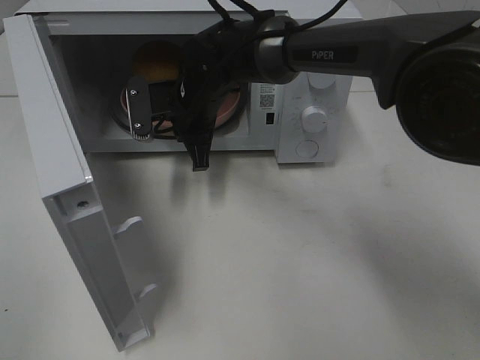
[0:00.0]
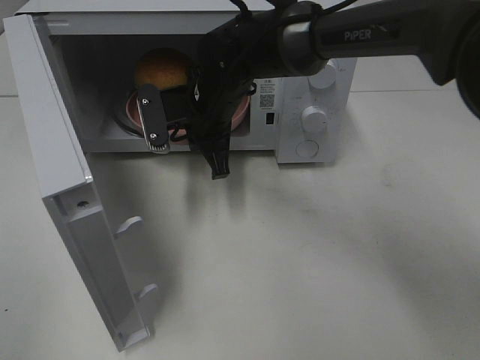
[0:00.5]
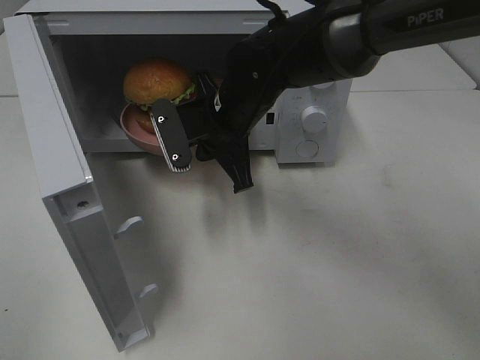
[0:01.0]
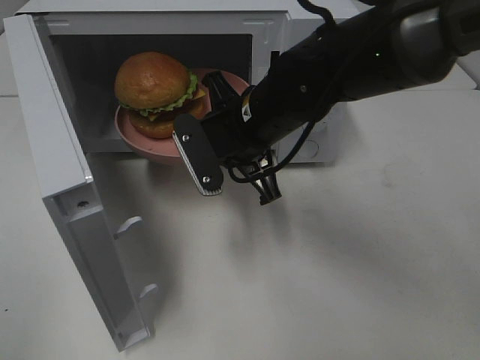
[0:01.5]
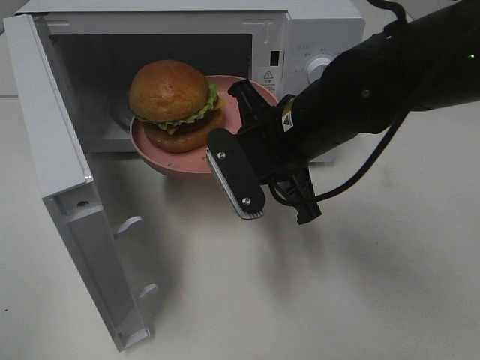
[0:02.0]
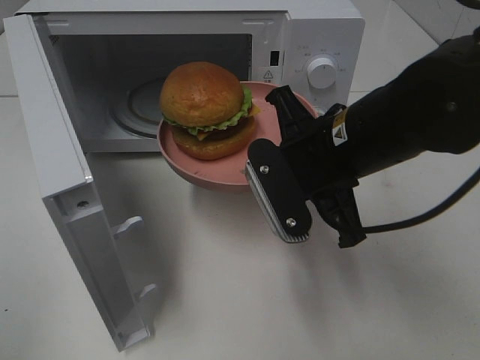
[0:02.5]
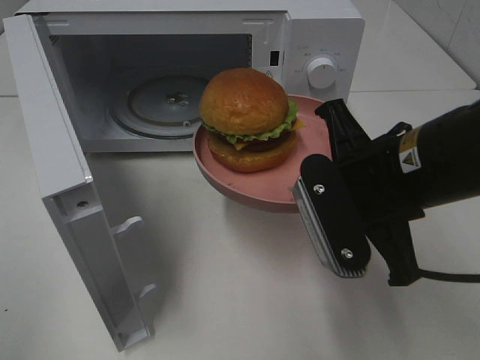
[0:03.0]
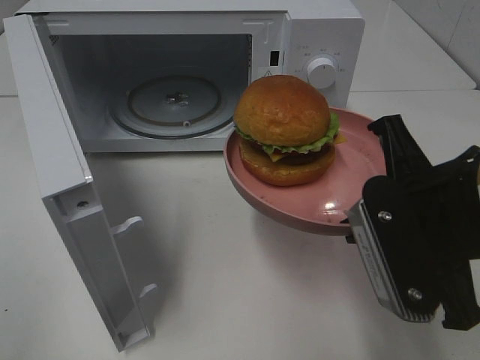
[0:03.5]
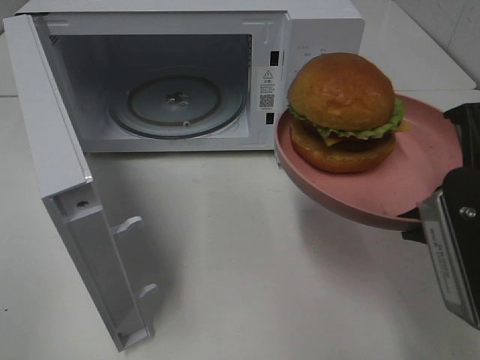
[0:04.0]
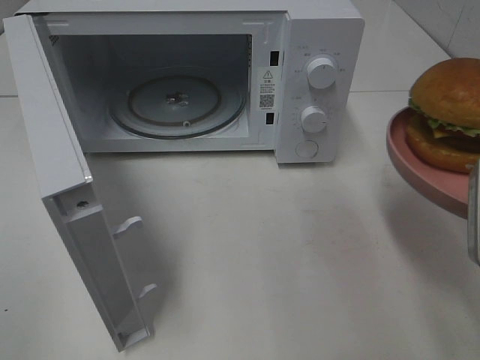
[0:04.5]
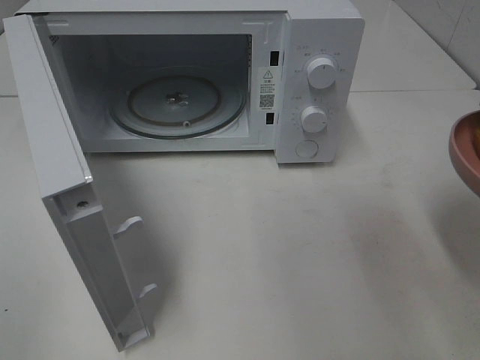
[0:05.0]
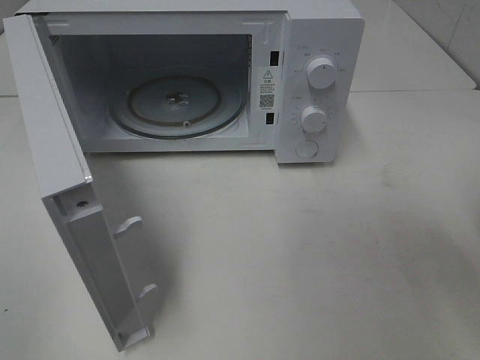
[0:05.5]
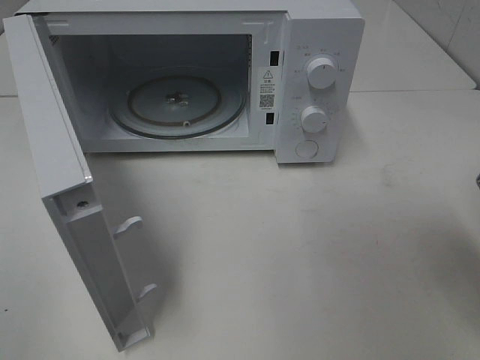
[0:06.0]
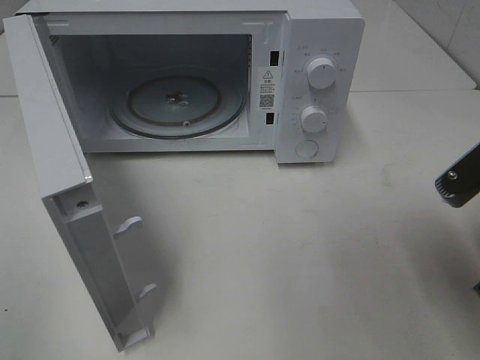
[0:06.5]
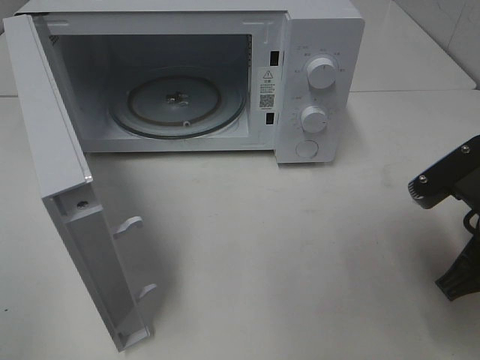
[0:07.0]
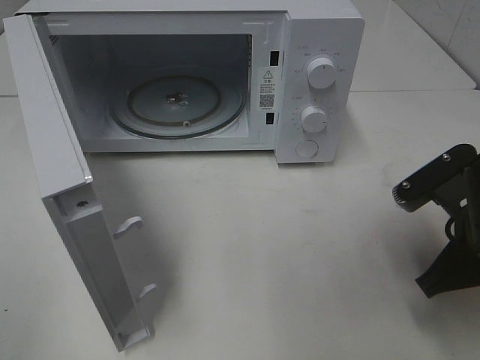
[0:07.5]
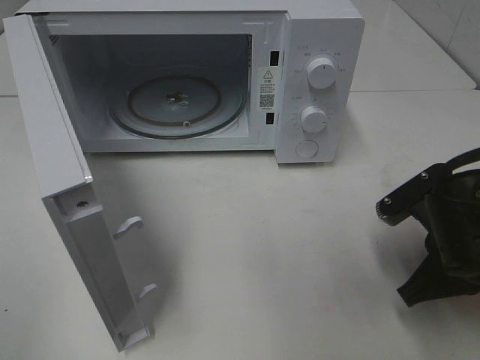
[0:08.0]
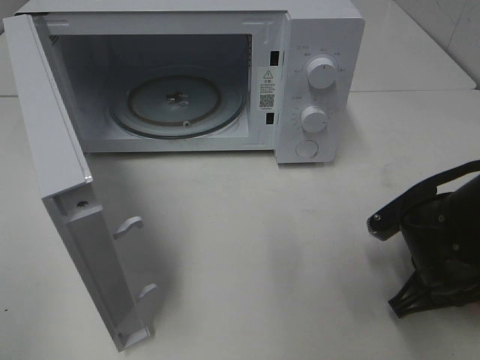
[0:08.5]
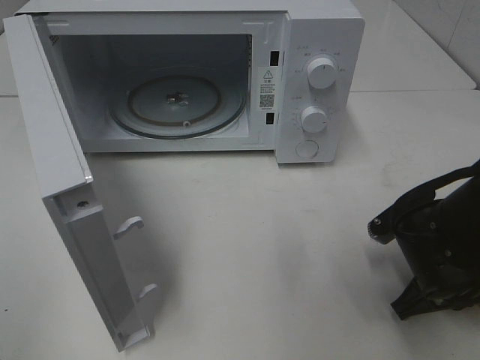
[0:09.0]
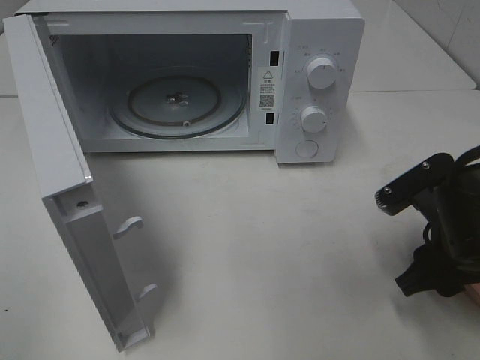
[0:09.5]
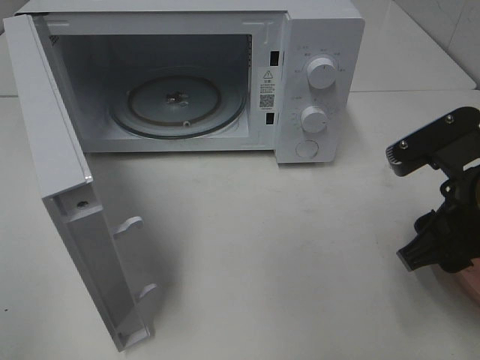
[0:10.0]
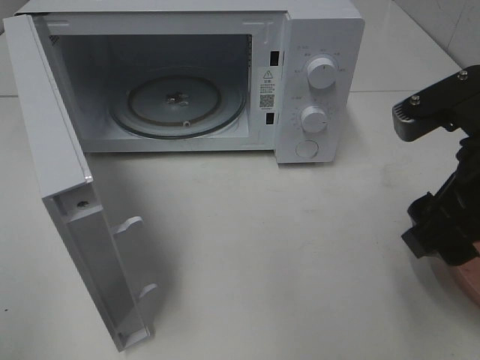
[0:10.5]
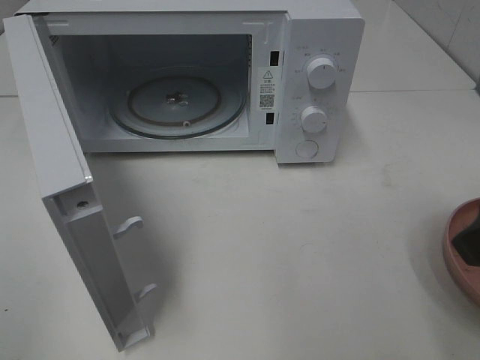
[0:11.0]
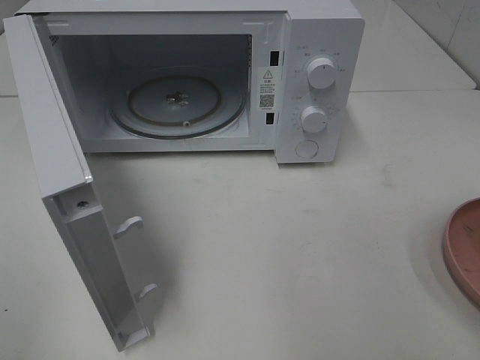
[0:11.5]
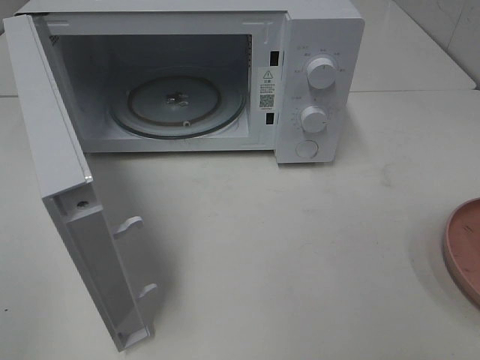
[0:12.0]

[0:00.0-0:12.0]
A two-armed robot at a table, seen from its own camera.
Task of the whole recording: Heat the burger.
Step, 0:00.0 to 0:09.5: Right hand: place the plate on the table.
0:00.0 to 0:02.0: The right gripper travels backward and to the right by some 15 cm.
0:02.0 to 0:04.0: The right gripper goes roughly 20 cm backward and to the right.
0:04.0 to 0:06.0: The right gripper is displaced to the right by approximately 5 cm.
0:06.0 to 0:08.0: The right gripper travels downward and forward by about 10 cm.
0:08.0 to 0:10.0: The right gripper is displaced upward by approximately 10 cm, and opens its fingers.
0:10.0 to 0:12.0: The right gripper moves backward, to the right and upward, roughly 20 cm.

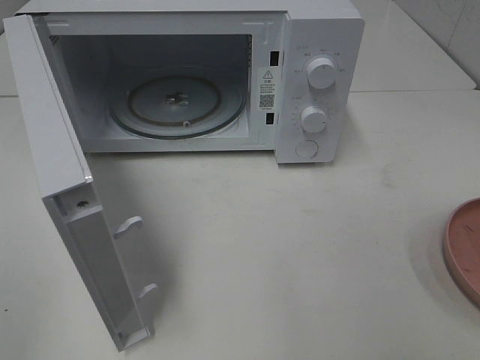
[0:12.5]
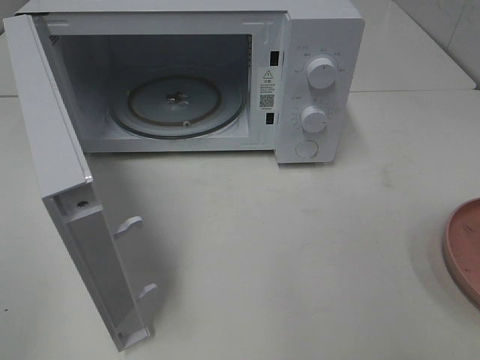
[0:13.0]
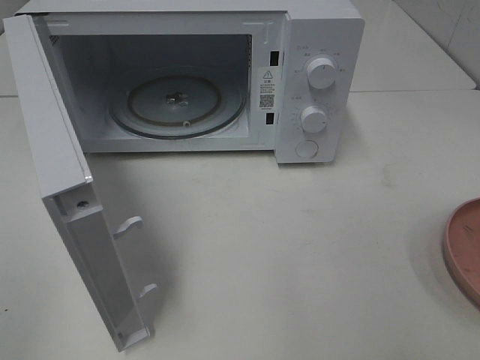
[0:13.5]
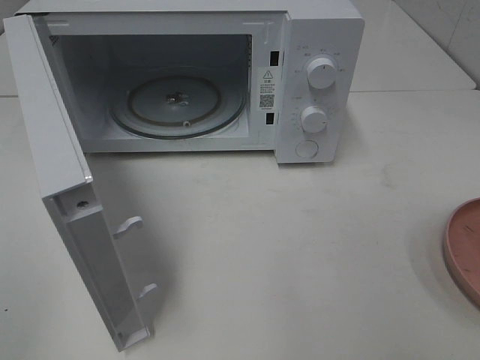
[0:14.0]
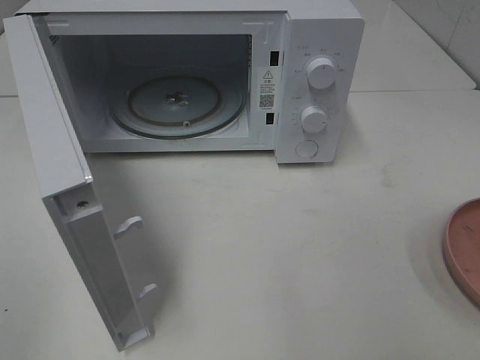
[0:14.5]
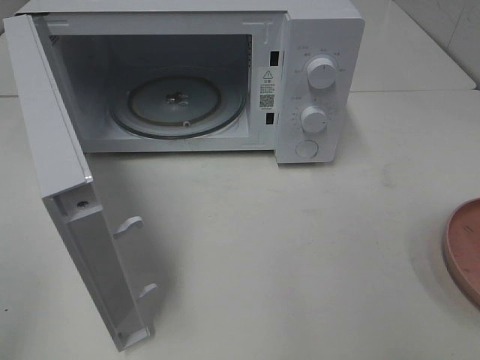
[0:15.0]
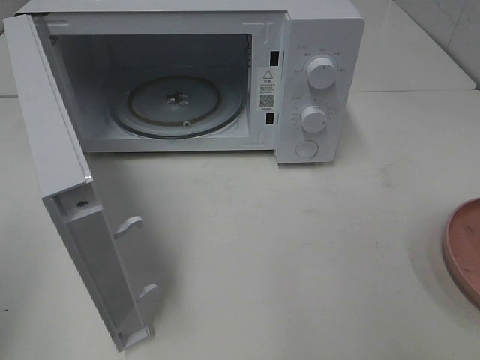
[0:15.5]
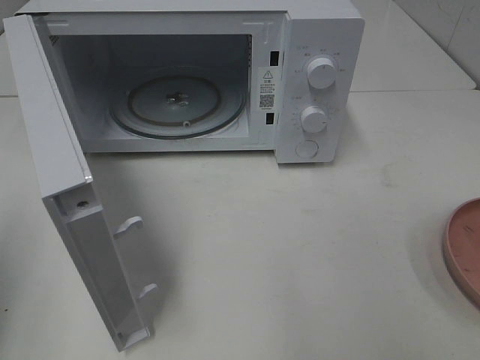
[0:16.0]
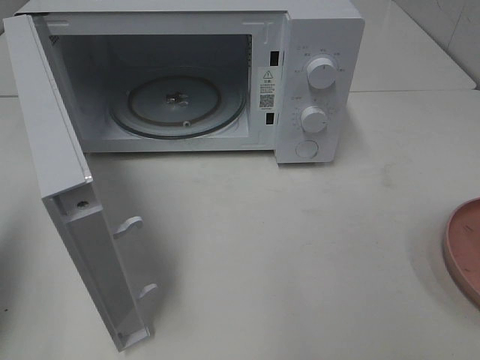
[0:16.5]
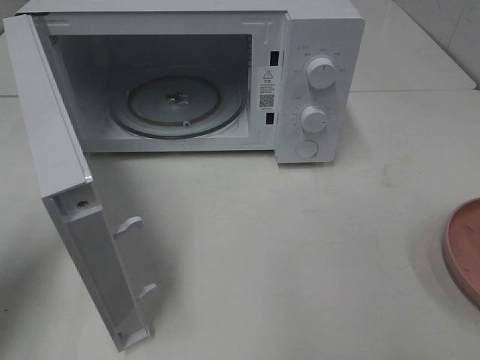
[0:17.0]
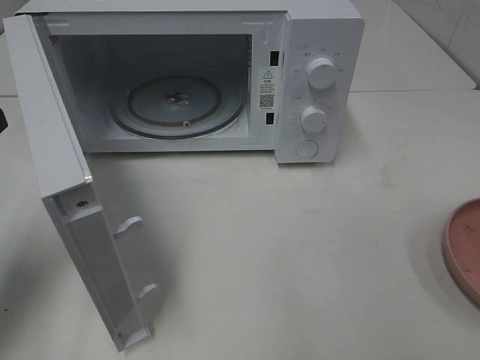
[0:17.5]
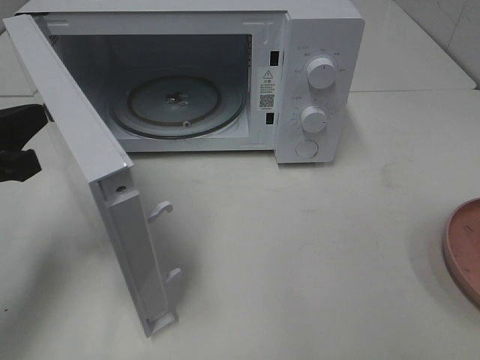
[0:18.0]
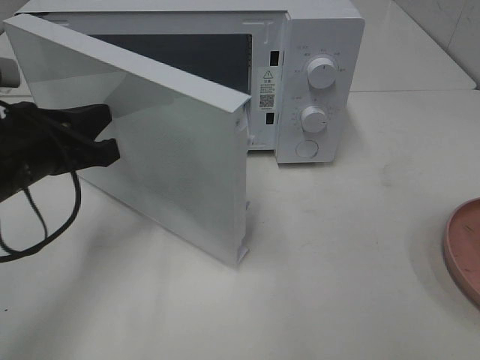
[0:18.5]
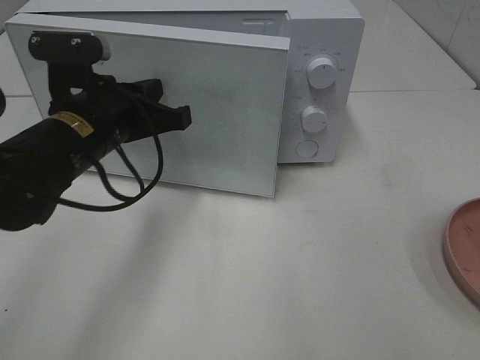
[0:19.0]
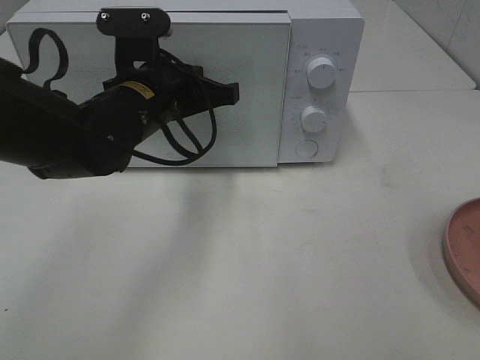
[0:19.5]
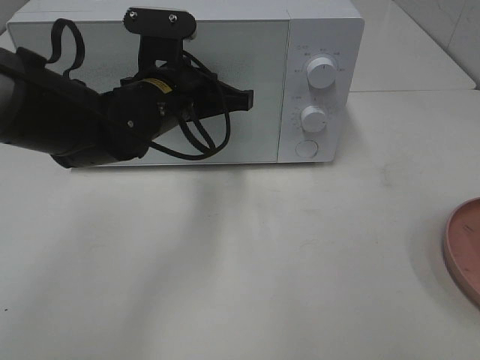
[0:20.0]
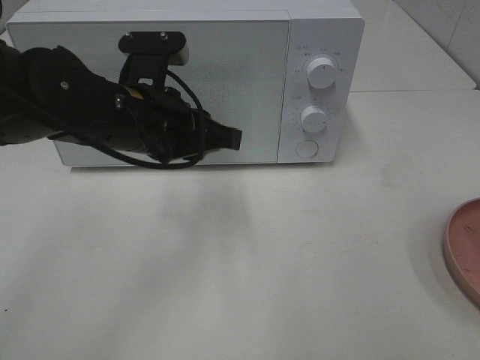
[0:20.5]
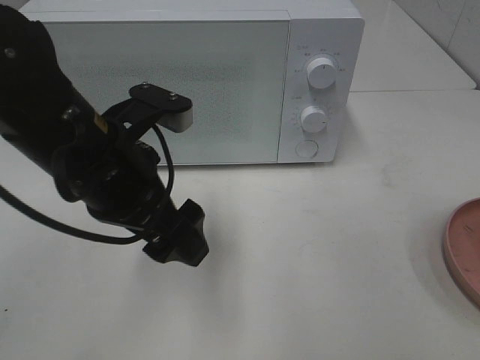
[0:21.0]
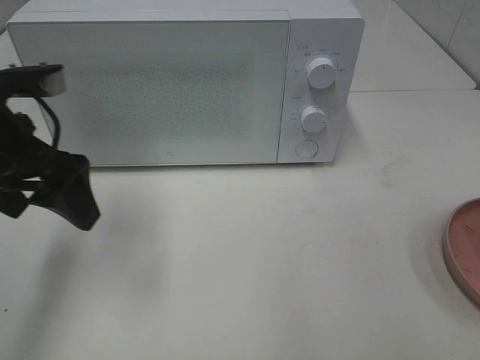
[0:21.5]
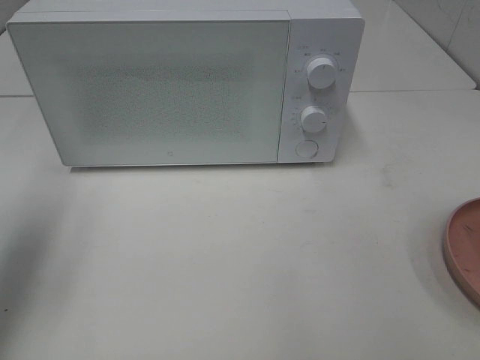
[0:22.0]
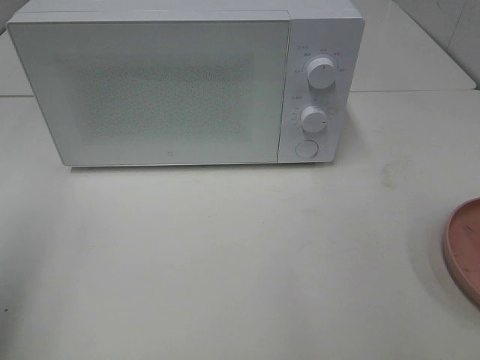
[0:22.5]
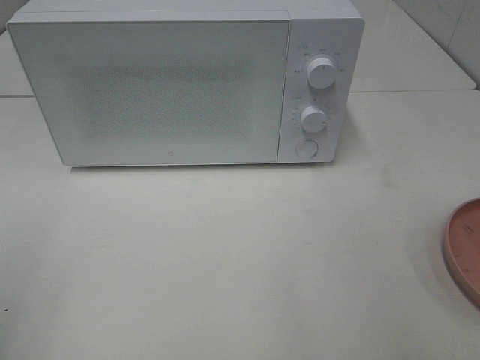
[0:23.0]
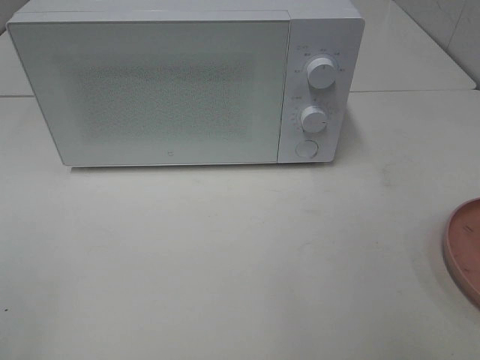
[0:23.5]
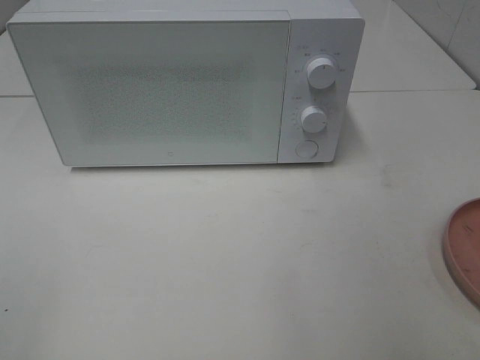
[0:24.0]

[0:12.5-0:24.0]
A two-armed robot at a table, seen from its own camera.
Task of the whole recording: Heat the burger.
Step, 0:12.5 to 0:20.5: Left hand: close the microwave door.
0:14.5 to 0:16.5: The left gripper moves forward, approximately 15 cm, and closes its fingers.
0:16.5 to 0:18.5: The left gripper heads to the right, forward and downward, covering some 20 cm.
0:18.5 to 0:20.0: The left gripper moves to the right and forward, roughly 15 cm.
0:20.0 to 0:22.0: The left gripper shifts about 30 cm to the left, backward and upward, and opens its fingers.
0:22.0 to 0:24.0: The left gripper goes approximately 20 cm backward.

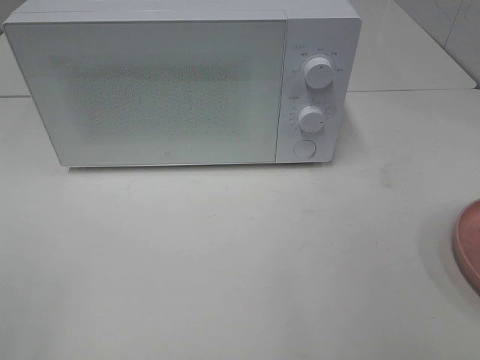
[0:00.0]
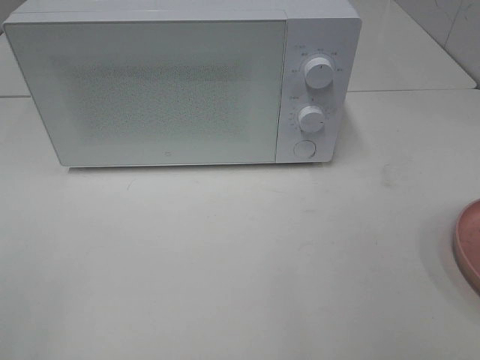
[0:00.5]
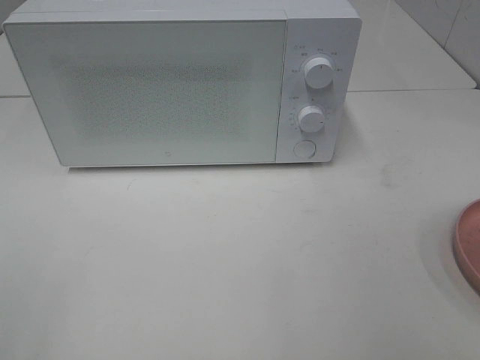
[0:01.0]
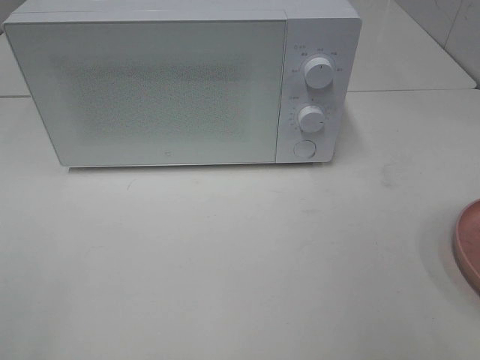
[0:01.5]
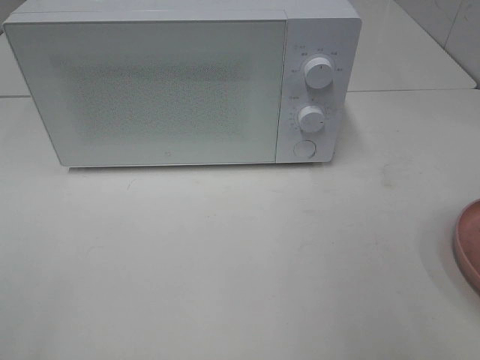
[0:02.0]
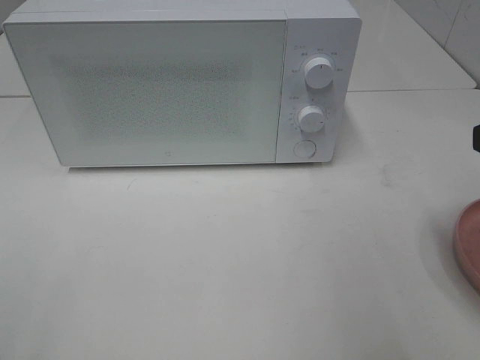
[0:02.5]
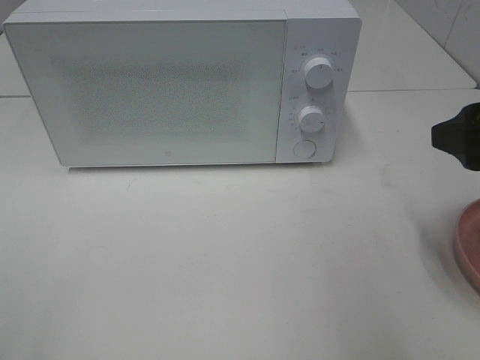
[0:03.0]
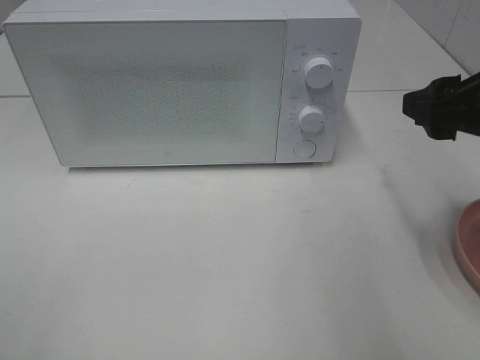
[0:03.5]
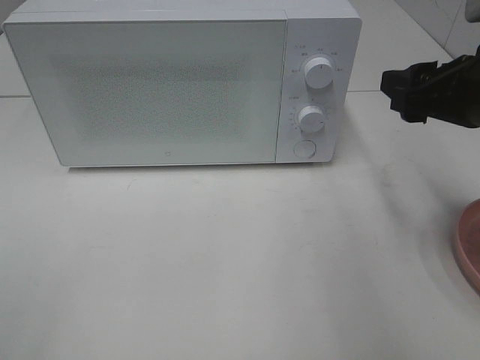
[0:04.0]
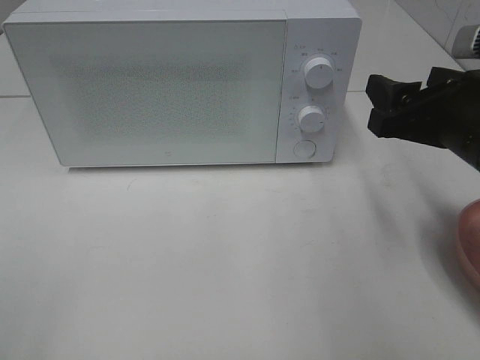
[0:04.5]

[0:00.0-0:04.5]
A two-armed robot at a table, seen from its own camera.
Task of the whole recording: Heat the burger.
0:02.0 to 0:04.5: The right gripper heads forward and downward, covering approximately 15 cm.
